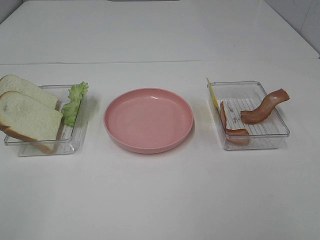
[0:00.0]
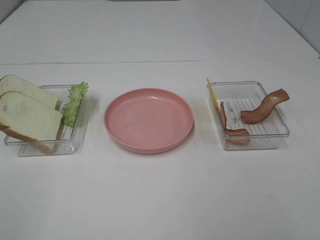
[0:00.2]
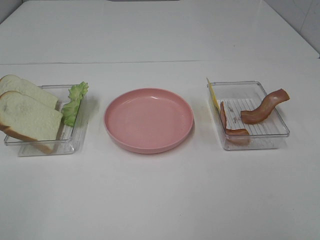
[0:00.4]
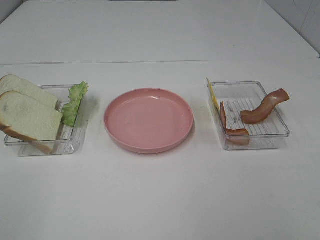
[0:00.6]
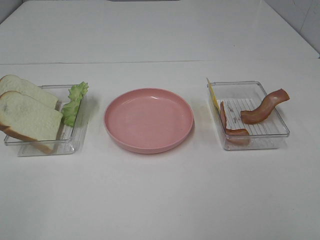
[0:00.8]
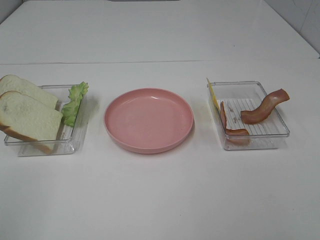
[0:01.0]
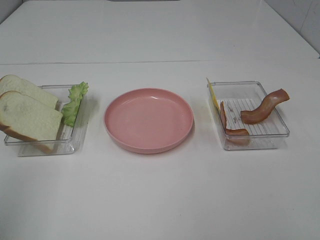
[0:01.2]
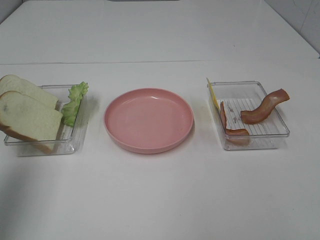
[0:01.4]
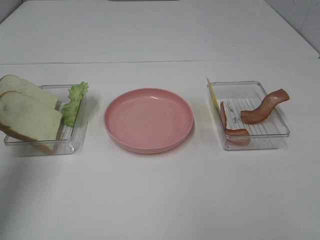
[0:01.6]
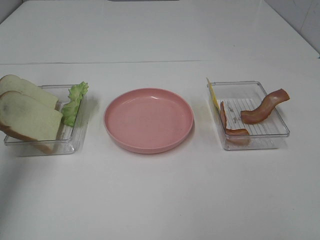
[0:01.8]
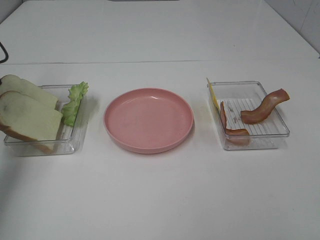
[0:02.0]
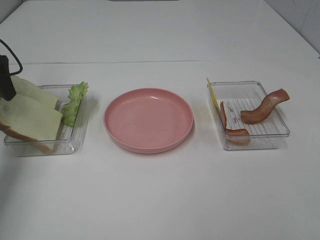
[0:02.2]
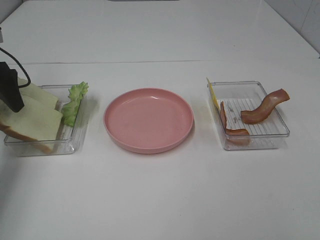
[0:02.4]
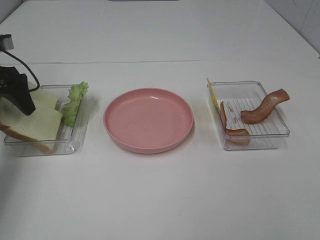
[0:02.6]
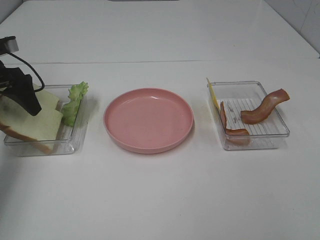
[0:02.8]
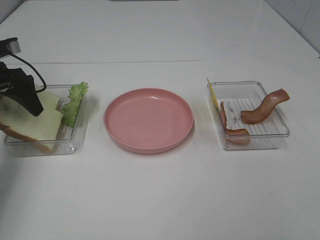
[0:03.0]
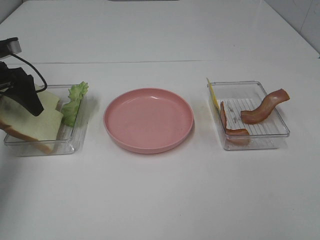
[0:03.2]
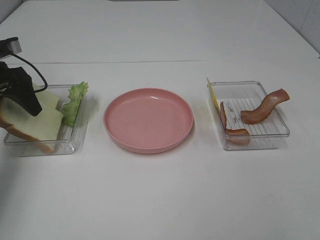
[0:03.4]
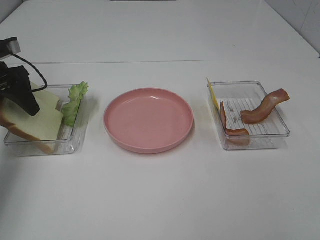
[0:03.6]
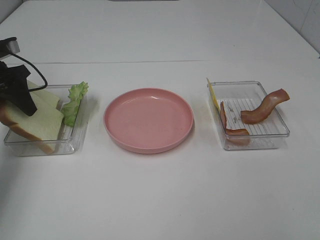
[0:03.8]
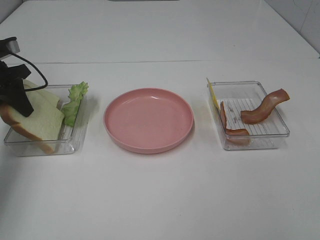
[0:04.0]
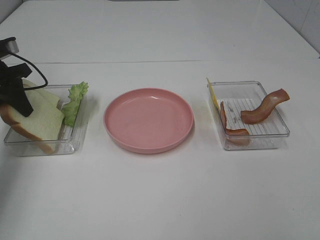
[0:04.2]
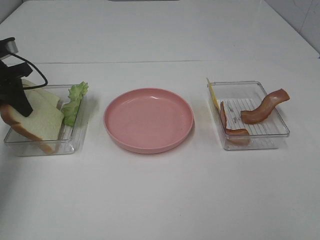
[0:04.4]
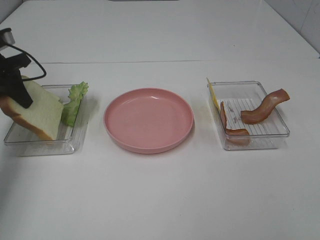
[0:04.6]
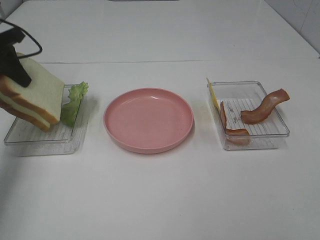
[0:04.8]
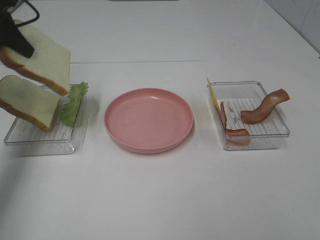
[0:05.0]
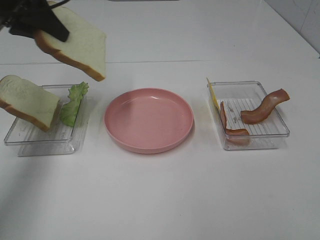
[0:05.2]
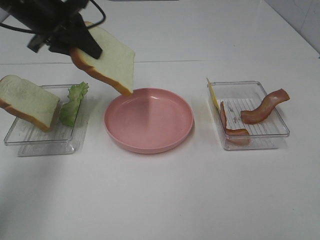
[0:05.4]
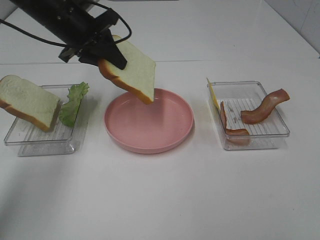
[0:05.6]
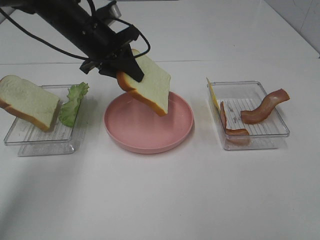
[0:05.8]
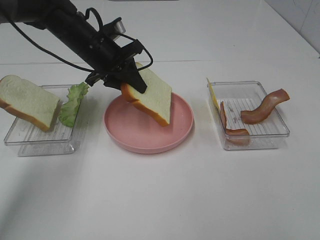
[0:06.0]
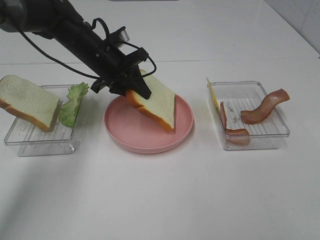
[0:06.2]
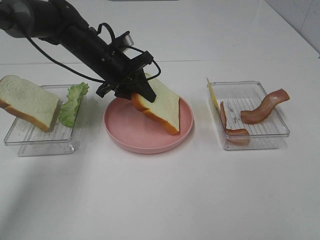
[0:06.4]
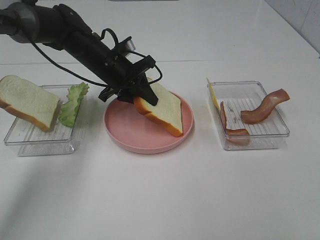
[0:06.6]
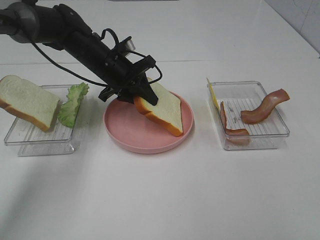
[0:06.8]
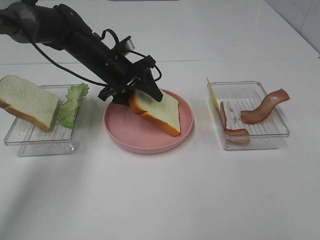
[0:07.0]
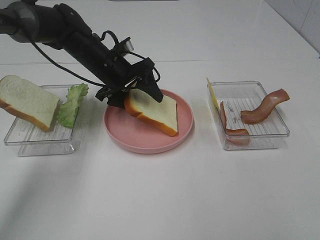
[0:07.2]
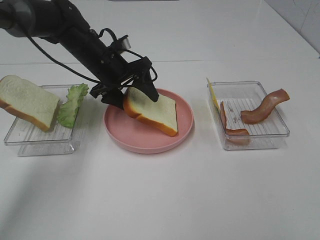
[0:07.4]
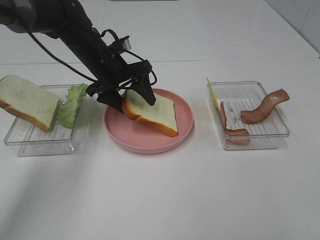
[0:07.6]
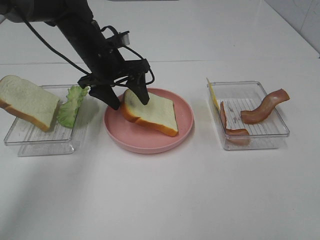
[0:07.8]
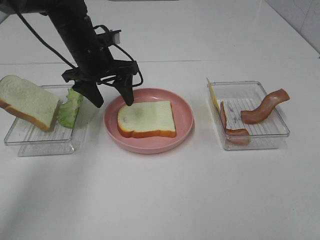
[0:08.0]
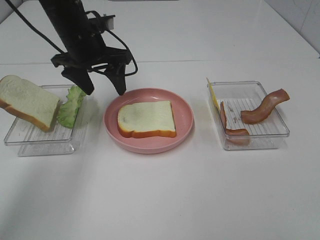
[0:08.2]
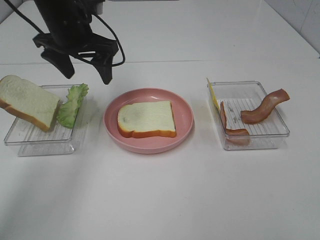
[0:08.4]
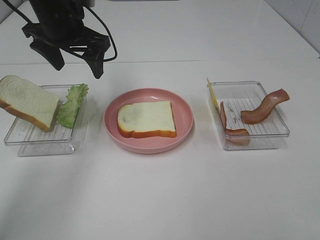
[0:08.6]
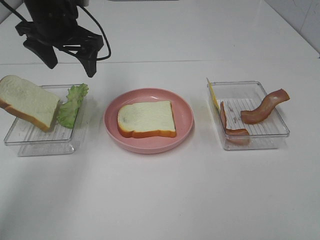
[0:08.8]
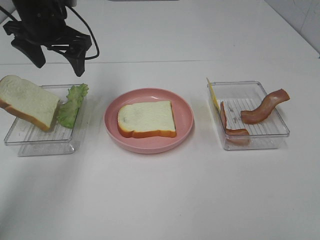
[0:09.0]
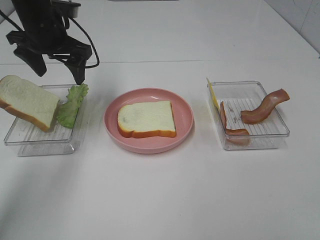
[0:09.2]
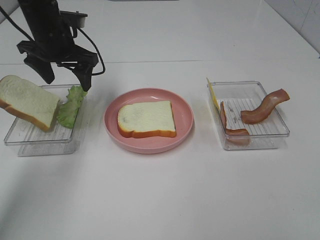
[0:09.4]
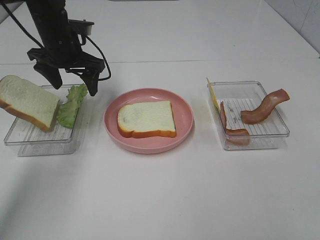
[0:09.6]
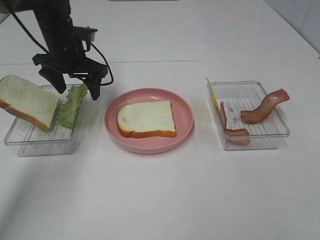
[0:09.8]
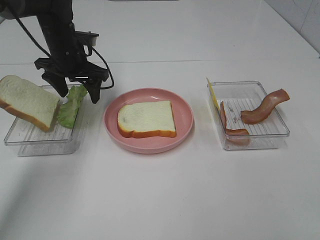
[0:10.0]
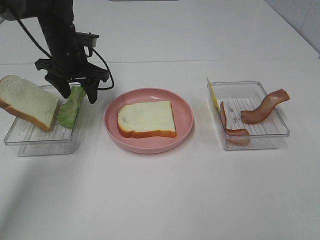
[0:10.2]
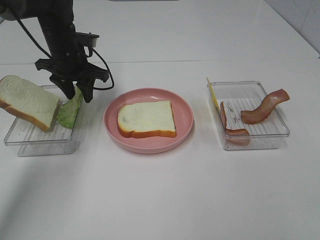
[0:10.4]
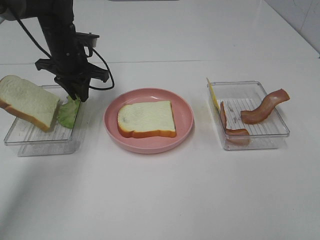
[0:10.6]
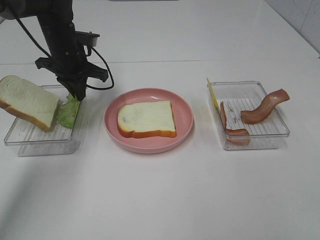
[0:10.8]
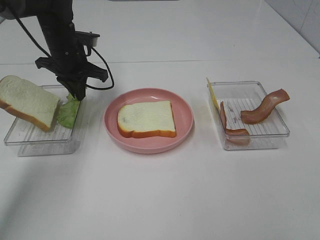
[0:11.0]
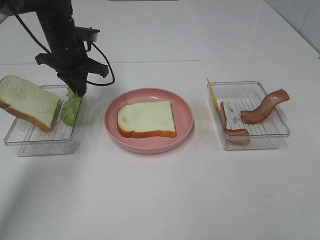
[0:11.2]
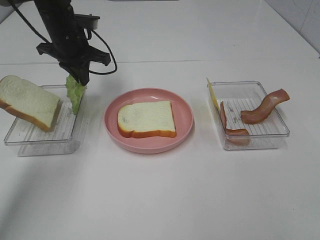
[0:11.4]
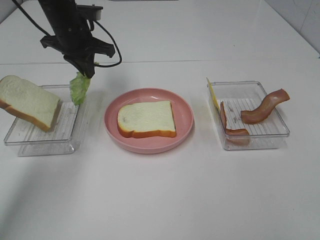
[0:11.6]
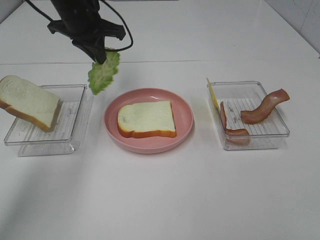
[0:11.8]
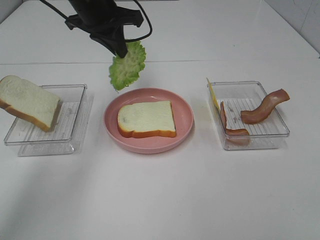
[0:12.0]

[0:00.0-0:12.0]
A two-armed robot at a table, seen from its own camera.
Task of the whole recording: Make sandwiches.
Step, 0:00.0 to 0:03.8: Left hand:grab the bread slice.
Step, 0:04.0 to 0:08.0: Left hand:place the bread slice on the plate.
Step, 0:08.2 to 0:11.2: Left hand:grab the lettuce slice.
0:00.0 to 0:01.6: The left gripper shifts roughly 25 cm forward.
0:01.6 to 0:03.0: The left gripper moves downward and forward, about 25 cm.
0:03.0 to 0:04.4: The left gripper closes.
0:04.4 to 0:06.0: The left gripper travels to the right by roughly 20 cm.
0:06.0 to 0:07.6: The left gripper opens up.
0:07.6 to 0:09.0: The left gripper shifts about 15 cm upward and to the left.
0:09.0 to 0:10.4: The left gripper goes some 10 cm downward, and closes up.
0:10.4 to 0:12.0: The left gripper moves upward and to the right, some 15 cm, and closes its fingers.

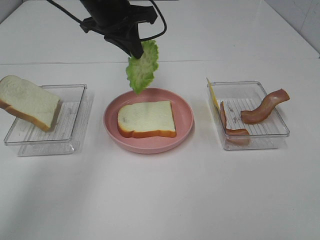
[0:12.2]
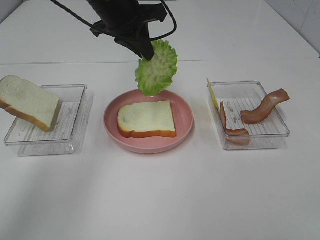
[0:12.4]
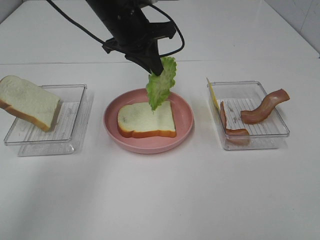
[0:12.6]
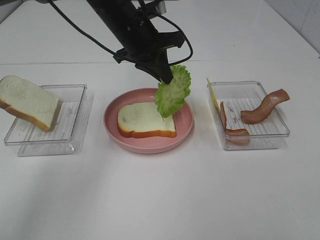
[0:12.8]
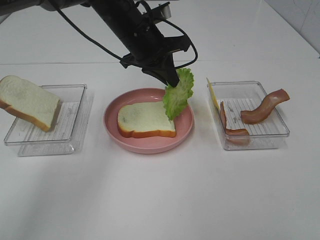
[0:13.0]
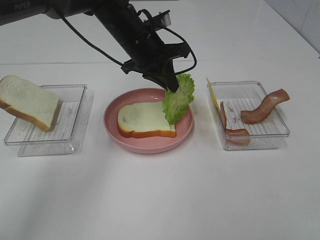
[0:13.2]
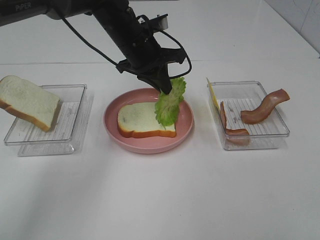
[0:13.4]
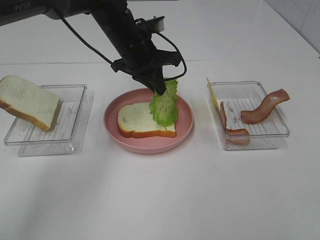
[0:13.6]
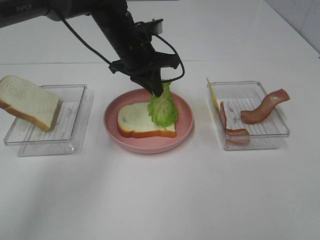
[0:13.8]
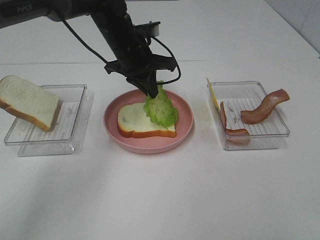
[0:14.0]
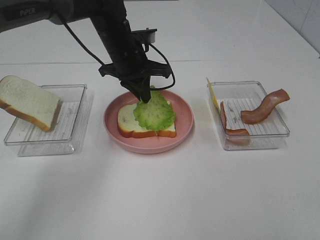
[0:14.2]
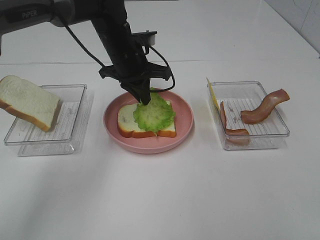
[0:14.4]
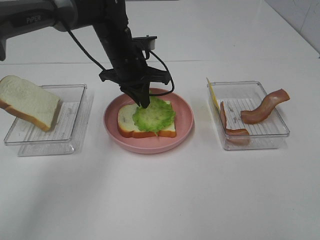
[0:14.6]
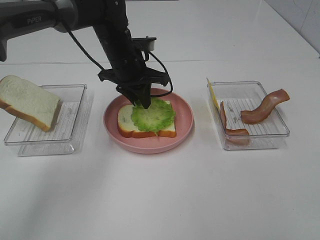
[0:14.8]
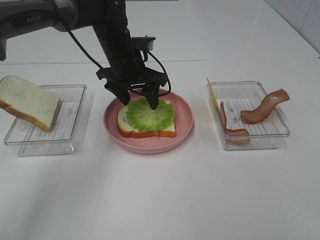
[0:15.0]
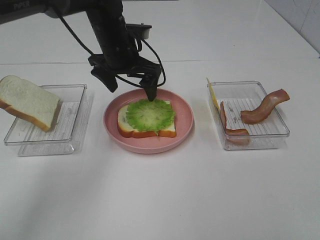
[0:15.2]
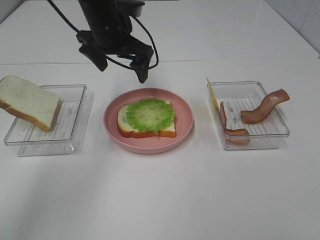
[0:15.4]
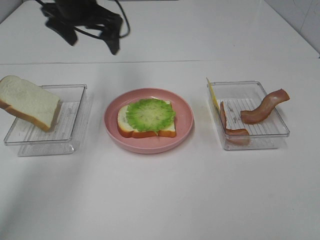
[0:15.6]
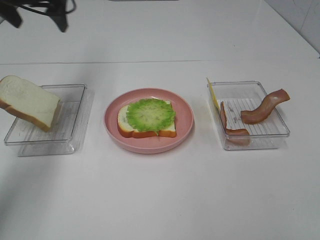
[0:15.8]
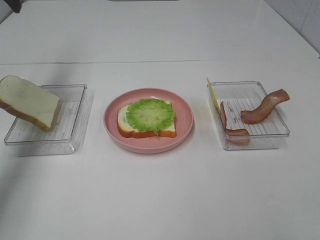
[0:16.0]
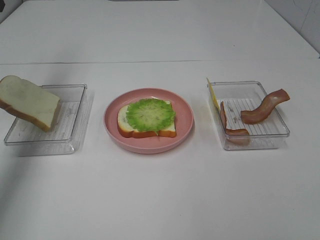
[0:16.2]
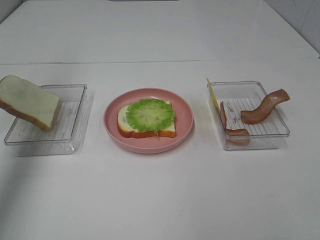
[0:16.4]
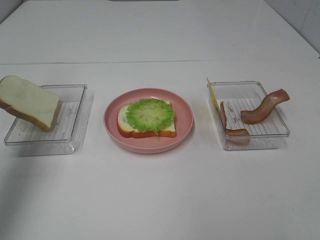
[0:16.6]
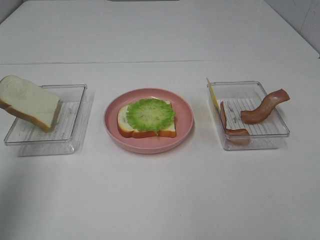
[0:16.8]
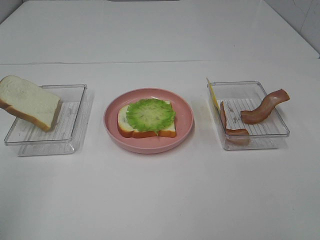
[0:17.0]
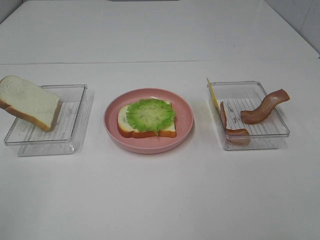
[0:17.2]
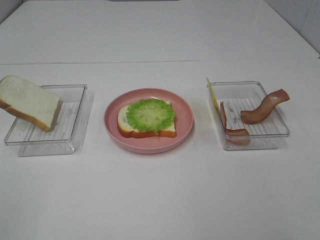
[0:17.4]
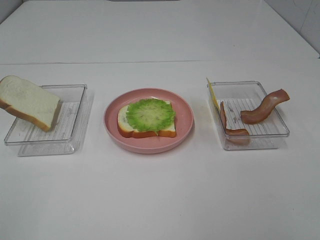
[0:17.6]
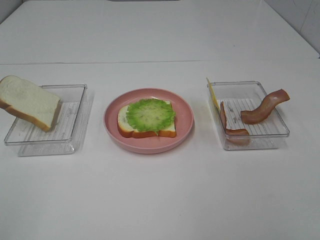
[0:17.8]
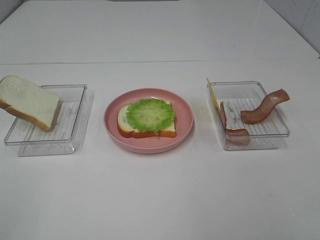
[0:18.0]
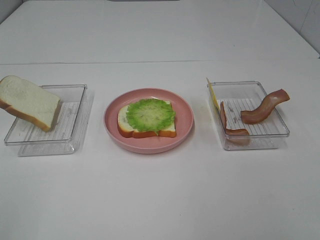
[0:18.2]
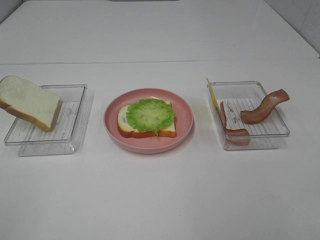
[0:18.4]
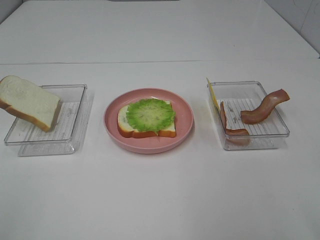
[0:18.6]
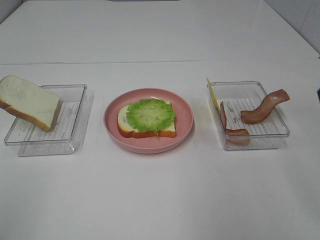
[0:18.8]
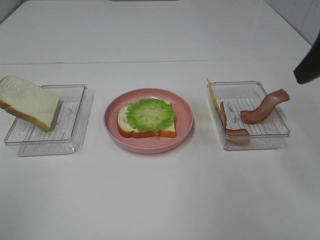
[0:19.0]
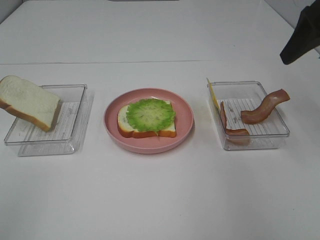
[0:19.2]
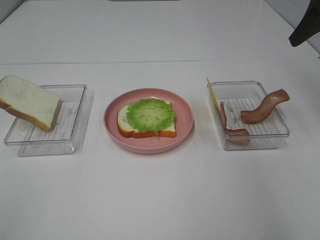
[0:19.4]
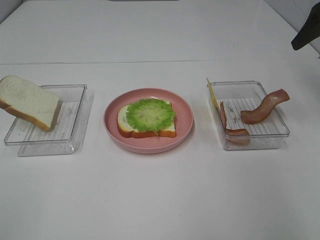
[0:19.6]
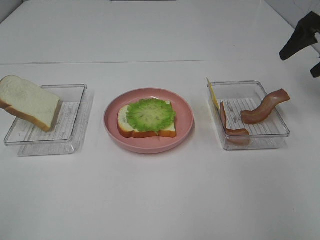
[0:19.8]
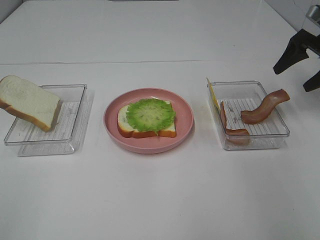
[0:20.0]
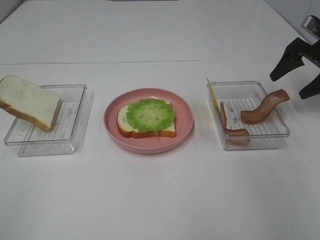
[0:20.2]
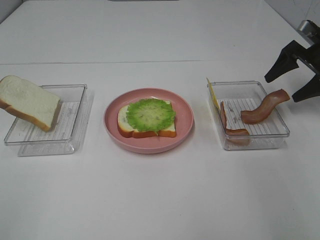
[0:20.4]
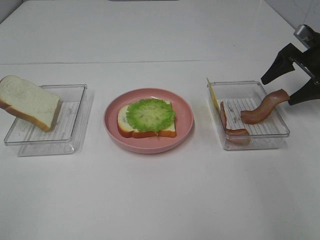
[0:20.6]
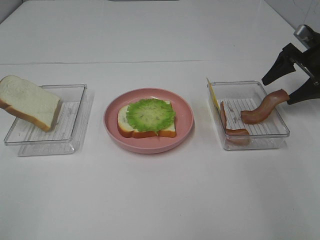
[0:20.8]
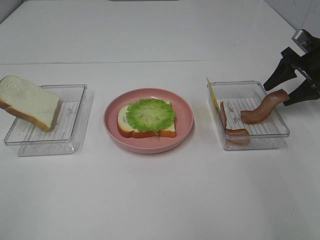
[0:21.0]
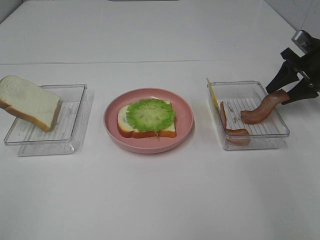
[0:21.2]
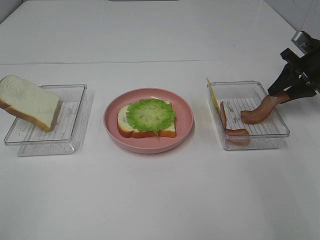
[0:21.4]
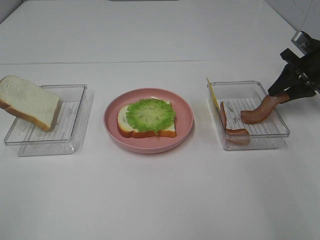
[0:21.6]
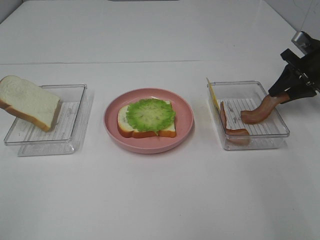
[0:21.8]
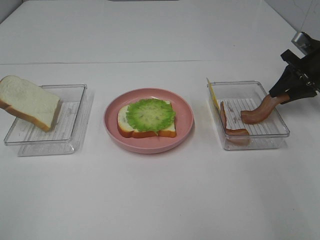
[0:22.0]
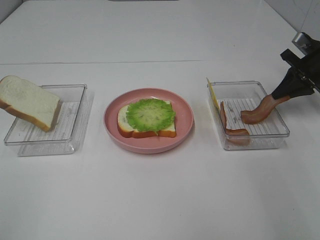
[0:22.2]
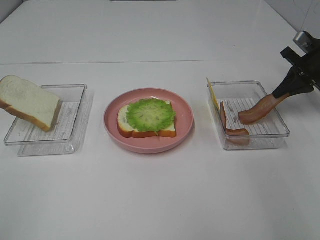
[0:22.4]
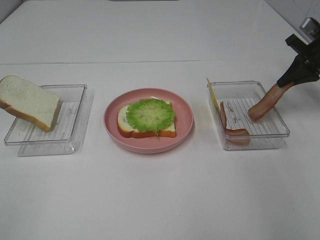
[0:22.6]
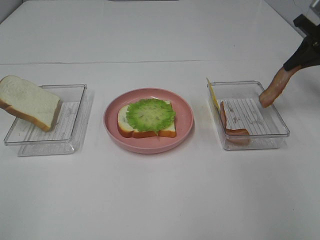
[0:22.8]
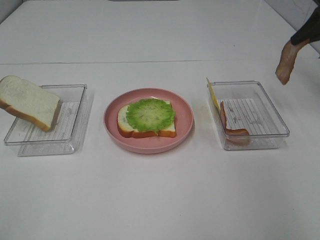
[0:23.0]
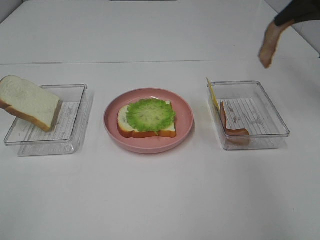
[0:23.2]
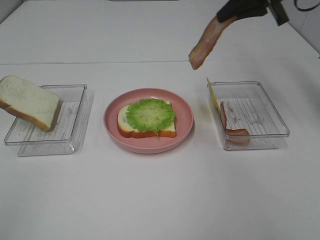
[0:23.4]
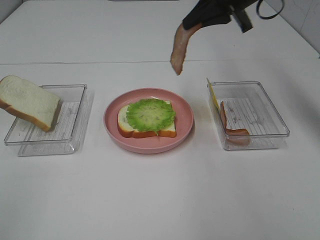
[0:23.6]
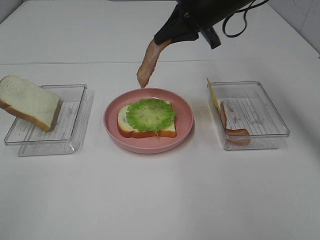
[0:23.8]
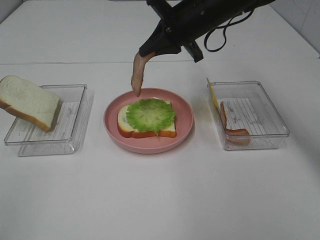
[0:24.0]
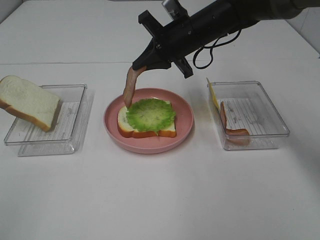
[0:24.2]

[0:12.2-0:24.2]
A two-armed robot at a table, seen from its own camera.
Task of the whole recording: Make sandwiches.
Step, 0:12.2 to 0:15.2: Left hand:place the lettuce slice on the bread slice.
Step, 0:15.4 to 0:22.6: Right hand:grab the bacon.
0:12.2 to 0:13.8: The left gripper goes about 10 cm downward.
0:13.8 to 0:15.2: The left gripper opens its fingers.
0:15.2 to 0:16.6: The left gripper moves to the left, backward and upward, some 35 cm.
0:16.6 to 0:18.2: The left gripper moves backward, some 25 cm.
0:18.2 to 0:19.8: The right gripper moves forward, approximately 40 cm.
0:19.8 to 0:21.2: The right gripper moves downward, about 10 cm, and closes up.
0:21.2 to 0:22.6: The right gripper closes its fingers.
0:22.6 to 0:24.2: The right gripper shifts about 30 cm to the left.
